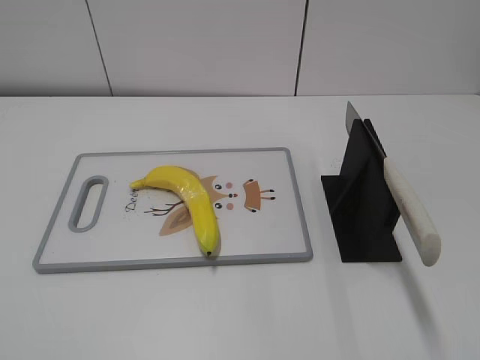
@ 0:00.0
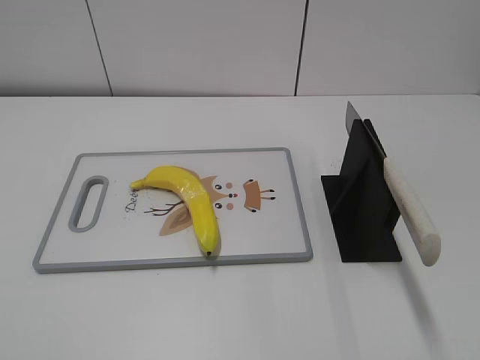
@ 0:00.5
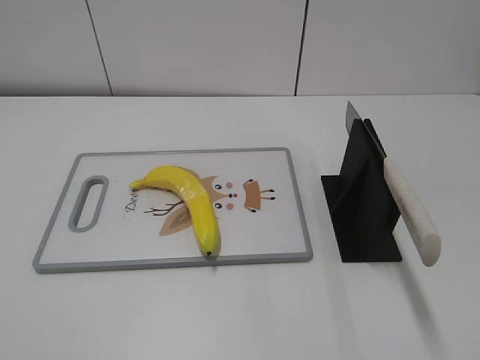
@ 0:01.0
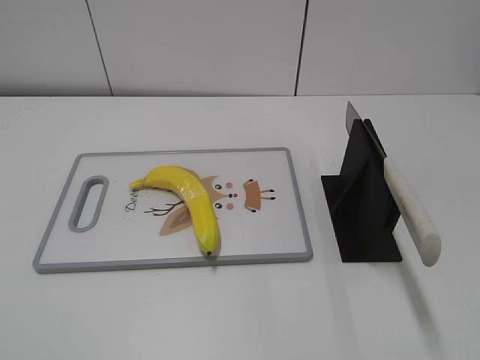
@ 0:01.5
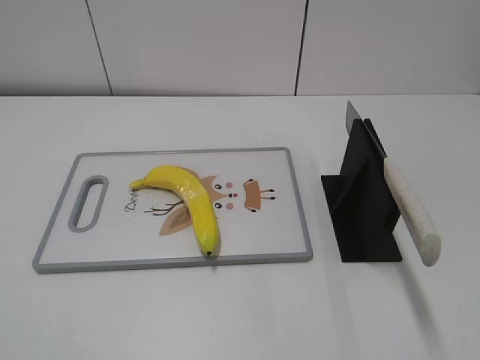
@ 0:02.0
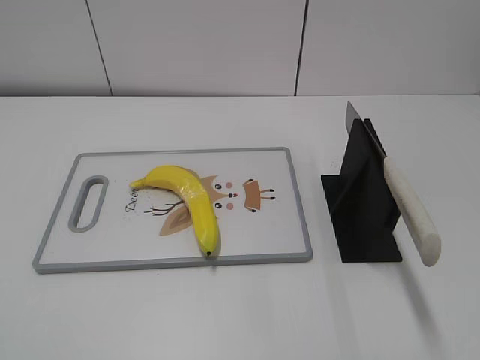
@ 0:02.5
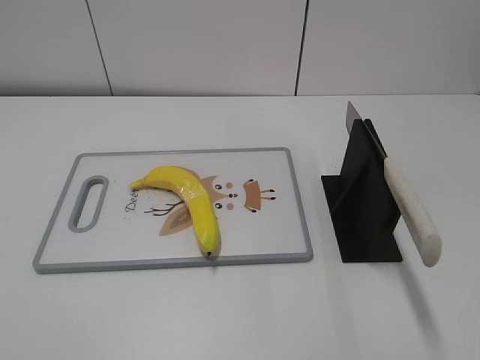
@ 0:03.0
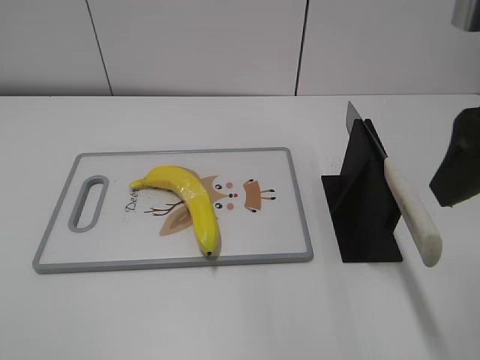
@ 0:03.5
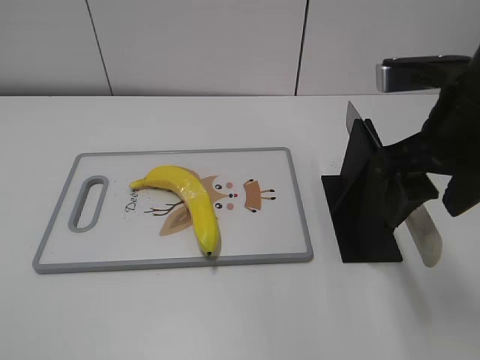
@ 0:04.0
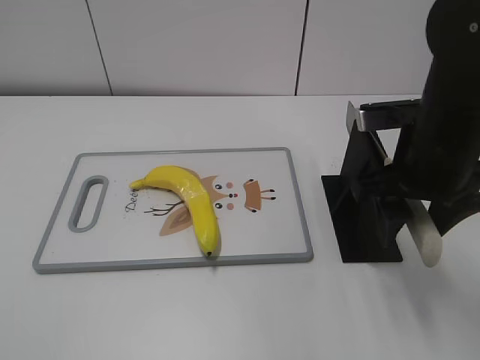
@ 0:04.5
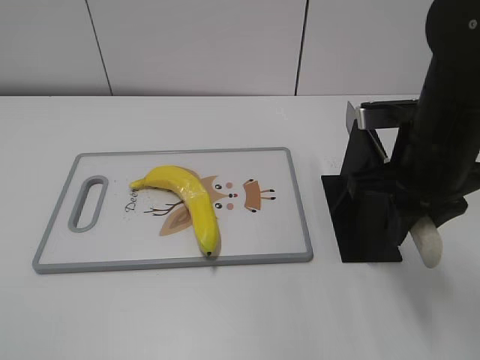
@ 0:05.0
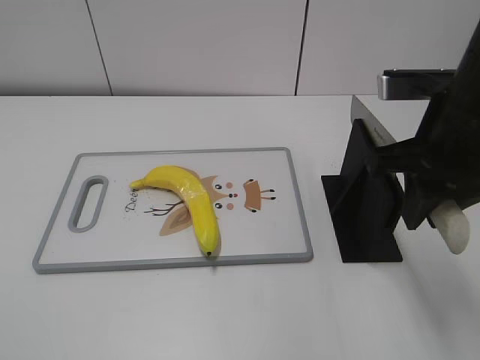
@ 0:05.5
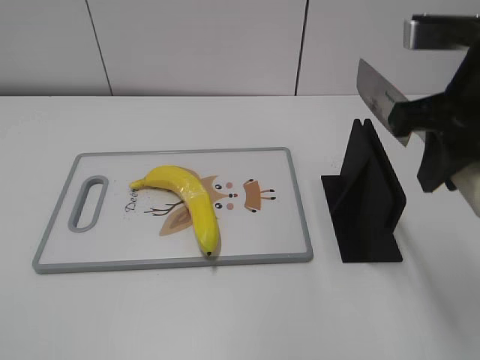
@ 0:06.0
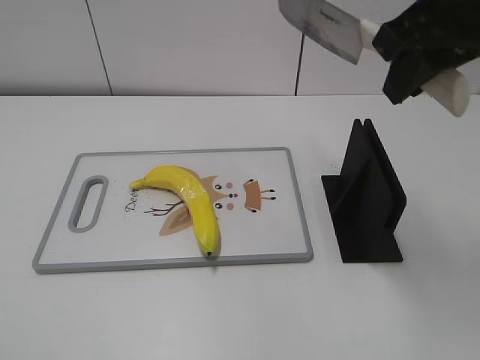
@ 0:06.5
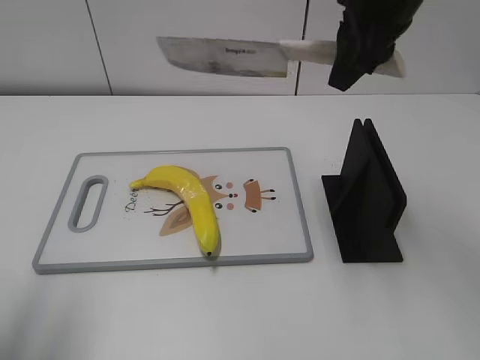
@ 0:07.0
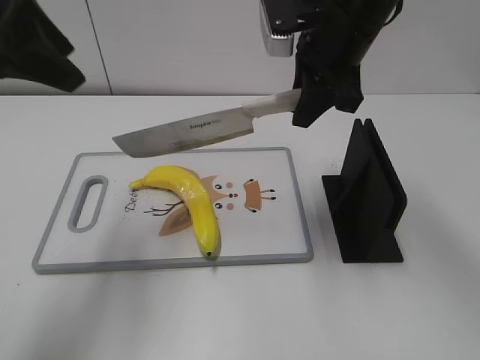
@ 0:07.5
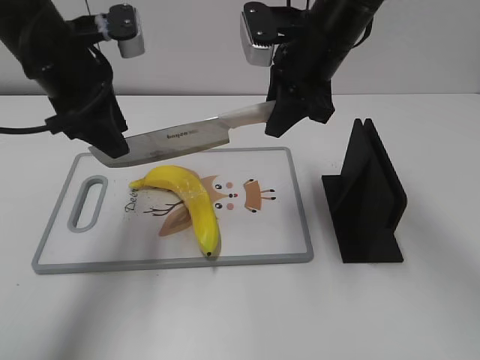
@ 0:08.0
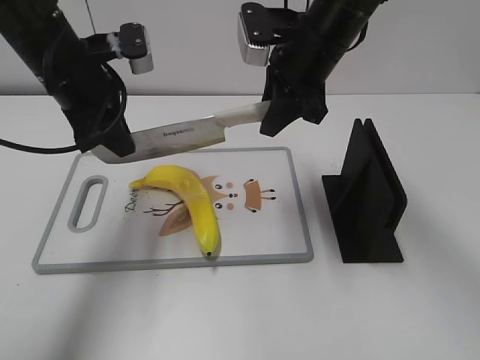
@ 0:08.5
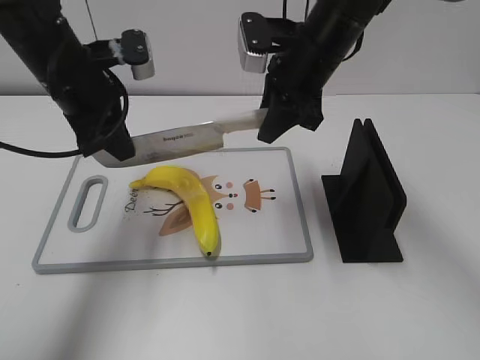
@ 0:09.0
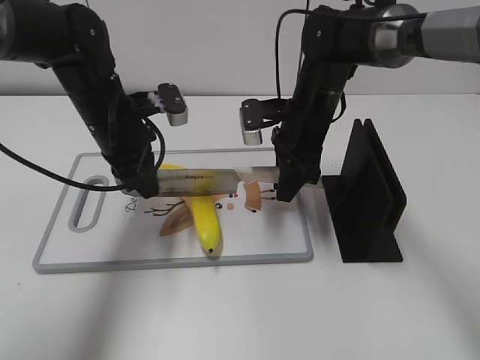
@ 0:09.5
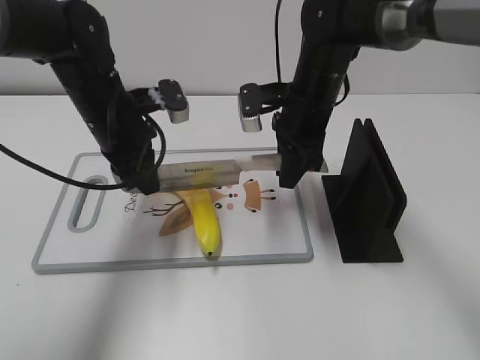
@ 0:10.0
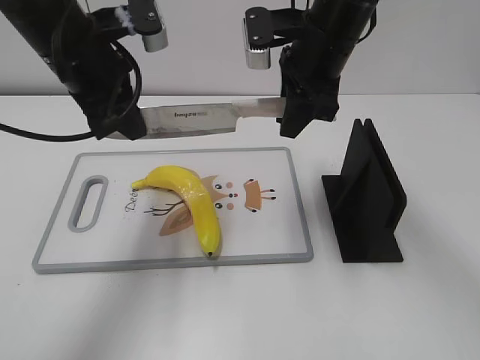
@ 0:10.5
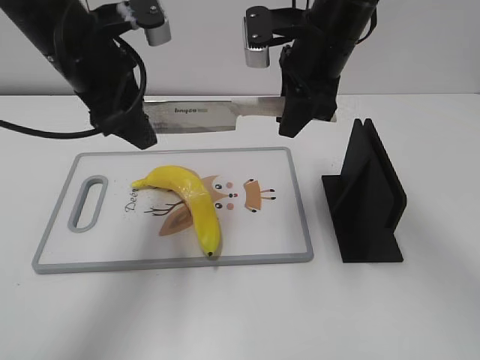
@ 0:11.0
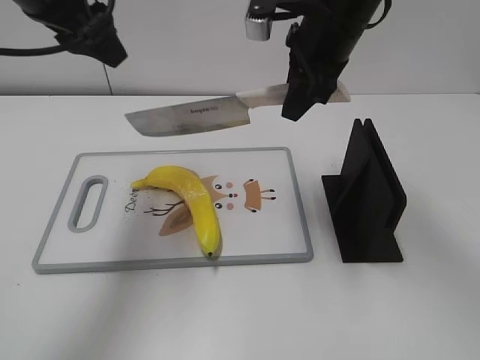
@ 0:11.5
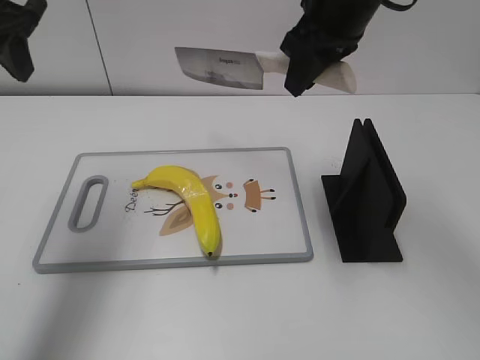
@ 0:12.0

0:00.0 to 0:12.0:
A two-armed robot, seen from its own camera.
Task of the whole recording: cut plastic banana.
Step, 0:00.0 to 0:06.0: Grab the knife handle with your right hand.
Step, 0:06.5 to 0:10.5: Lift the knife with your right hand.
Step, 0:11.0 to 0:12.0: Cut the banana with your right hand.
0:02.0 to 0:04.0: The right gripper heads forward and to the left, covering approximately 25 cm.
0:04.0 to 0:06.0: The right gripper closes its fingers.
0:06.0 to 0:08.0: The left gripper shifts approximately 35 cm forward; the right gripper moves forward and to the left, some 20 cm.
0:08.0 to 0:10.0: The two grippers go some 10 cm downward. The left gripper closes.
0:10.0 to 0:12.0: The right gripper travels upward by some 15 cm, while the left gripper travels upward and to the left by about 20 cm, and opens up.

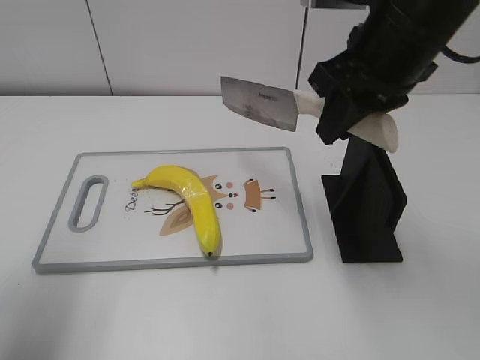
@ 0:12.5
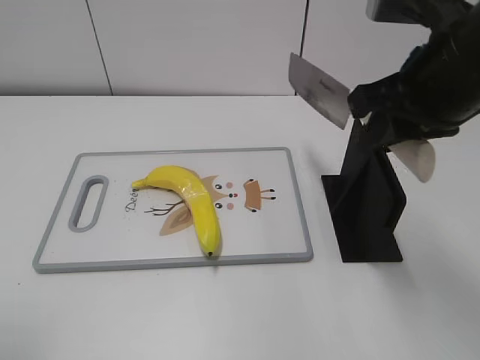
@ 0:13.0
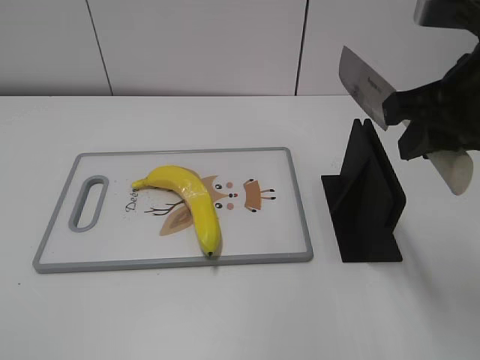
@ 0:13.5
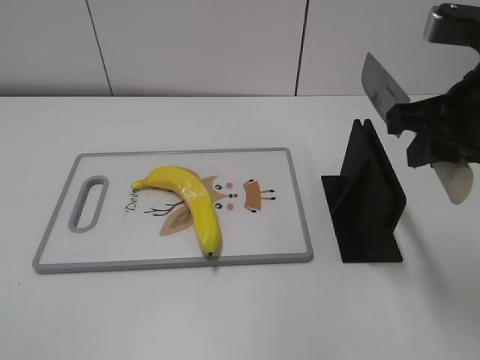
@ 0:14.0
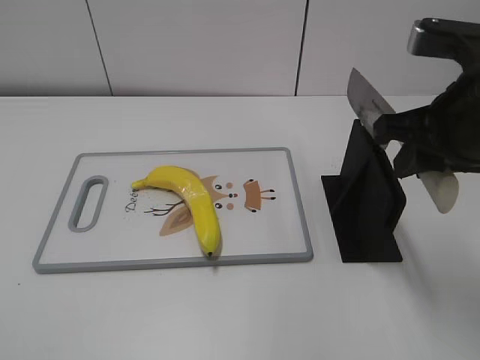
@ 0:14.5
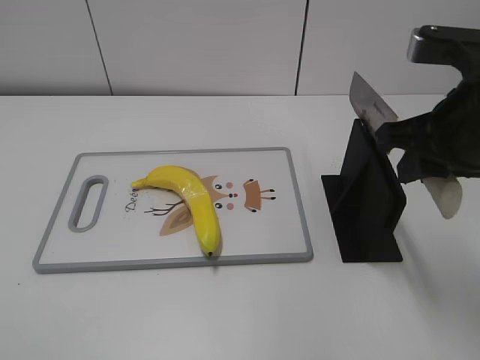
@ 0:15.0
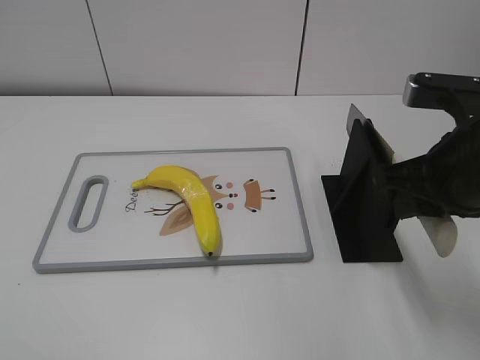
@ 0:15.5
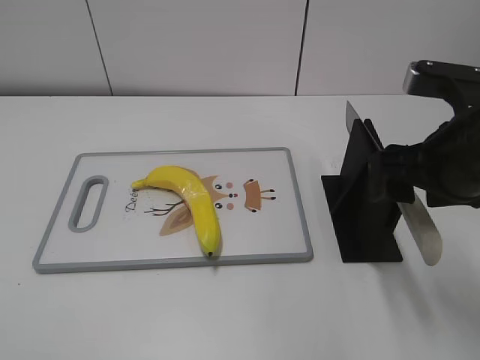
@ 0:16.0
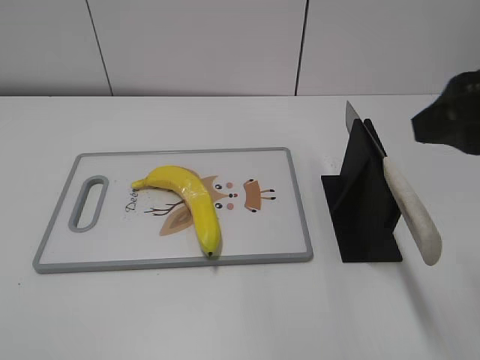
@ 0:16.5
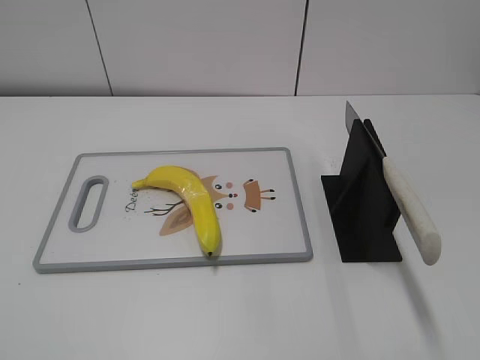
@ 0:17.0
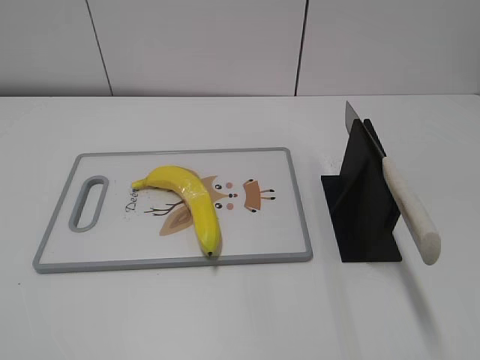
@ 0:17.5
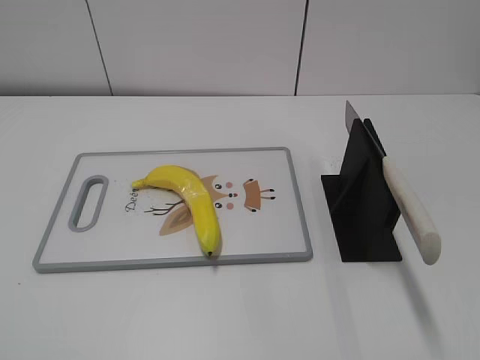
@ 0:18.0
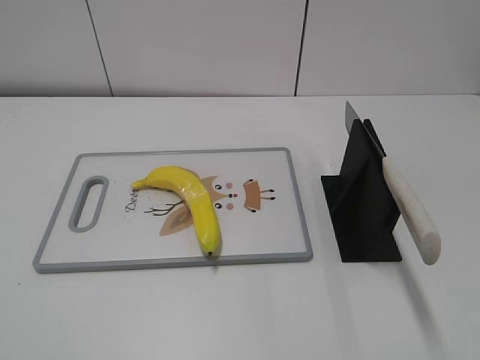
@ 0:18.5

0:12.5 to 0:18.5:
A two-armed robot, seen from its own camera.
Task of the whole recording: cut plastic banana.
Step, 0:12.5 to 0:13.5: Lift the knife with your right hand.
Step, 0:14.0 to 0:18.5: Place the knife on the storage rack with your right hand.
0:12.5 to 0:14.5: The left gripper travels backward by approximately 25 cm. Meanwhile the right gripper heads to the right and backward, covering roughly 10 cm.
0:14.5 to 0:16.5: The right gripper travels backward and upward by some 10 cm, and opens.
0:16.5 to 0:18.5: The right gripper moves backward and to the right, about 20 cm.
